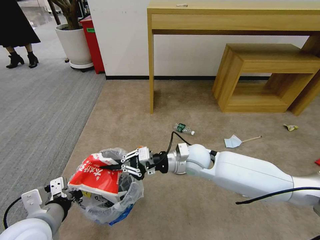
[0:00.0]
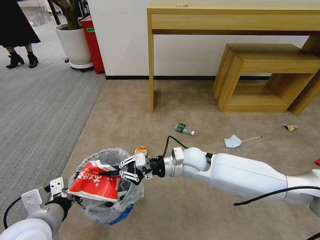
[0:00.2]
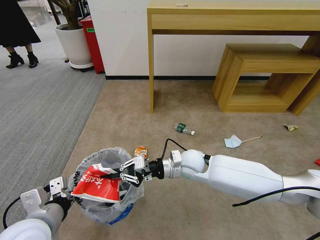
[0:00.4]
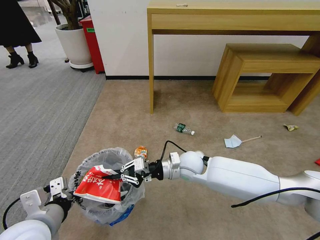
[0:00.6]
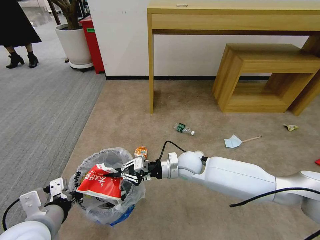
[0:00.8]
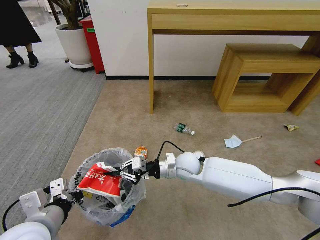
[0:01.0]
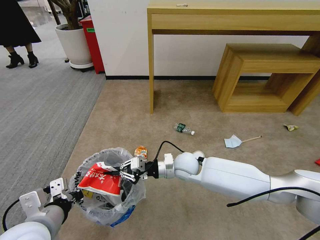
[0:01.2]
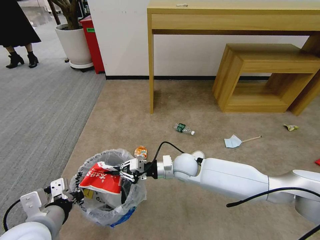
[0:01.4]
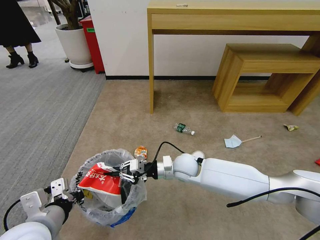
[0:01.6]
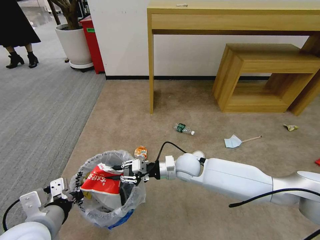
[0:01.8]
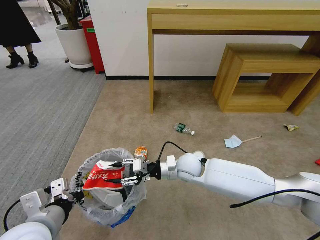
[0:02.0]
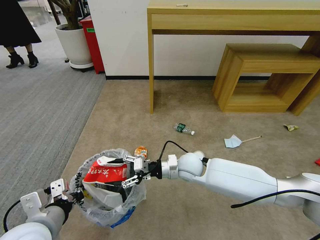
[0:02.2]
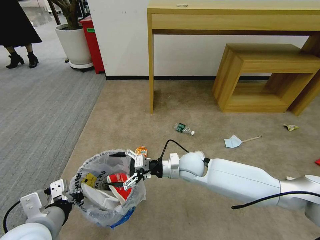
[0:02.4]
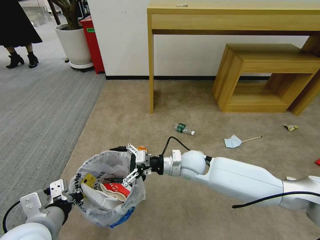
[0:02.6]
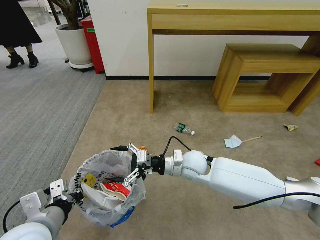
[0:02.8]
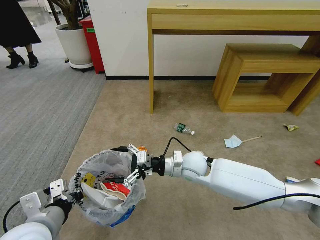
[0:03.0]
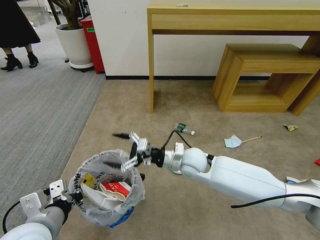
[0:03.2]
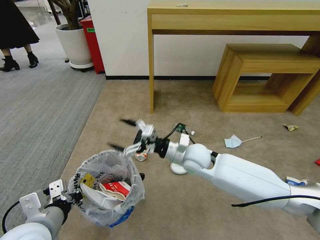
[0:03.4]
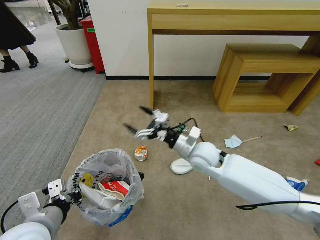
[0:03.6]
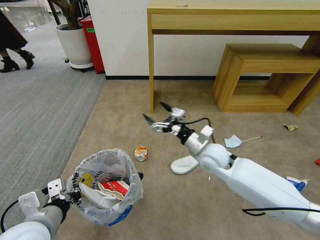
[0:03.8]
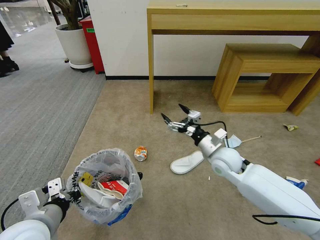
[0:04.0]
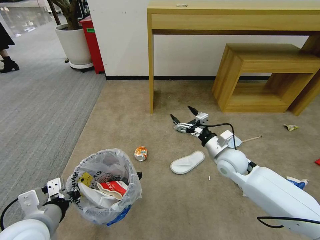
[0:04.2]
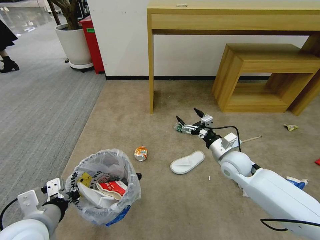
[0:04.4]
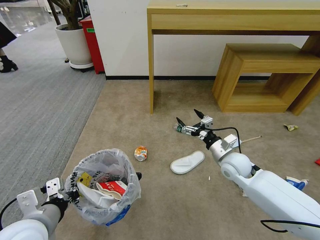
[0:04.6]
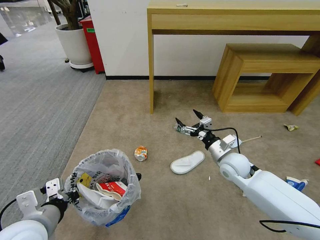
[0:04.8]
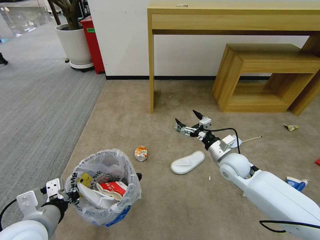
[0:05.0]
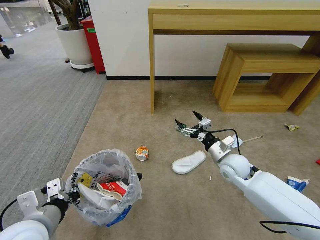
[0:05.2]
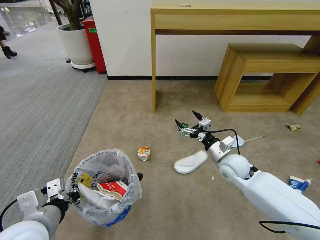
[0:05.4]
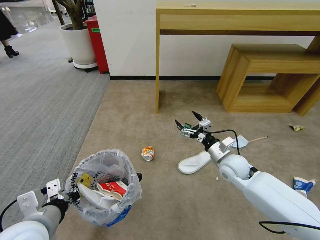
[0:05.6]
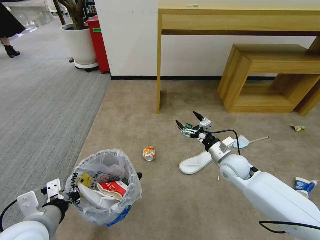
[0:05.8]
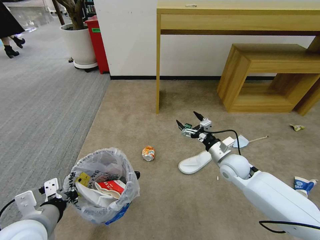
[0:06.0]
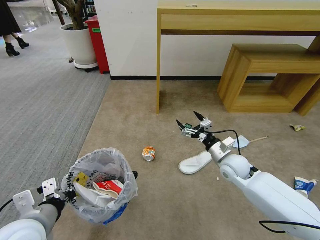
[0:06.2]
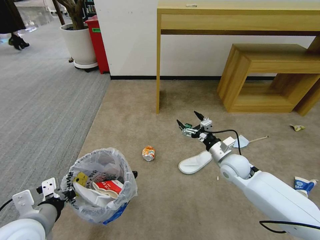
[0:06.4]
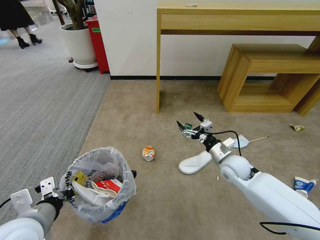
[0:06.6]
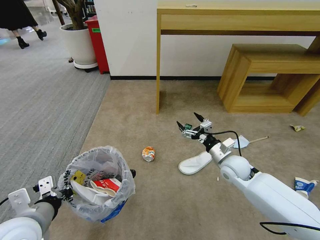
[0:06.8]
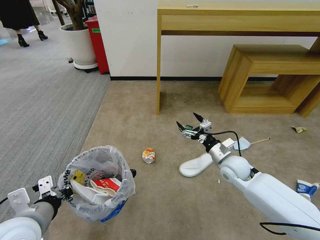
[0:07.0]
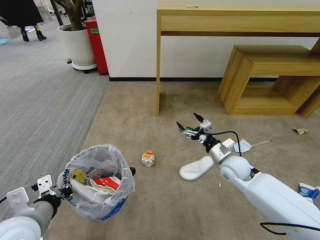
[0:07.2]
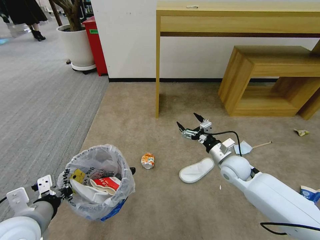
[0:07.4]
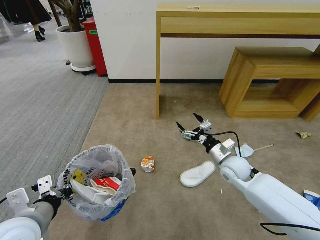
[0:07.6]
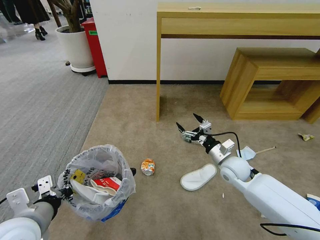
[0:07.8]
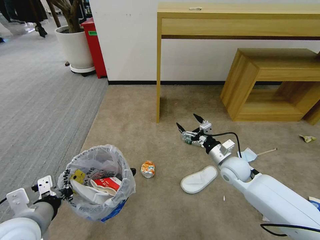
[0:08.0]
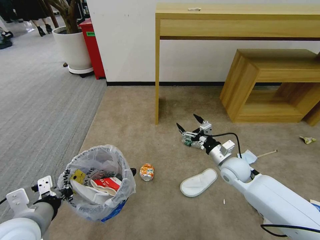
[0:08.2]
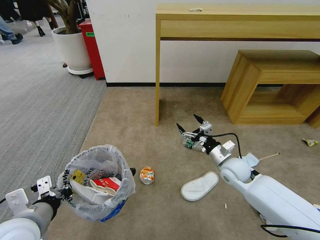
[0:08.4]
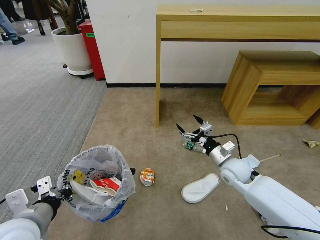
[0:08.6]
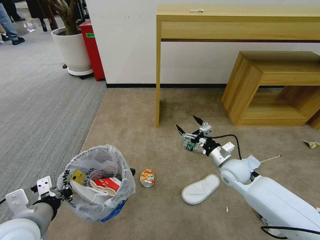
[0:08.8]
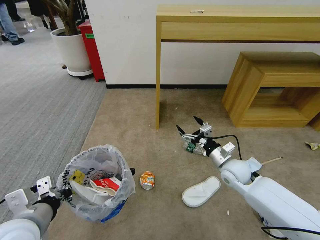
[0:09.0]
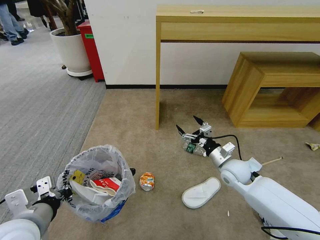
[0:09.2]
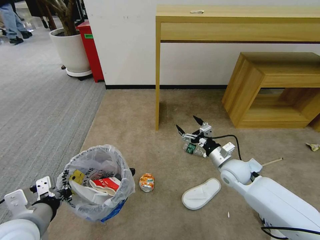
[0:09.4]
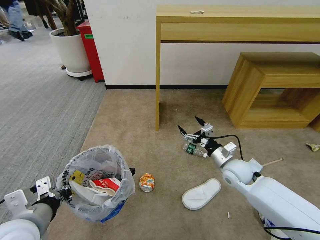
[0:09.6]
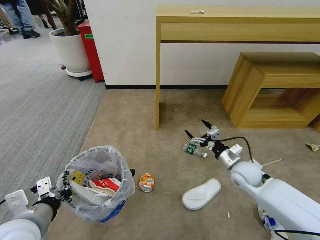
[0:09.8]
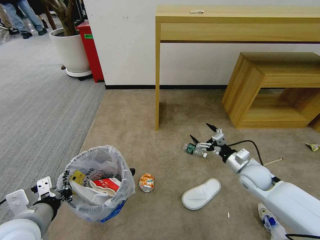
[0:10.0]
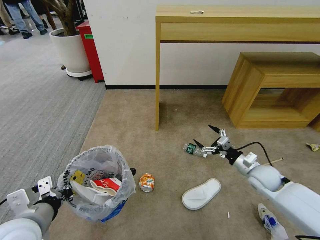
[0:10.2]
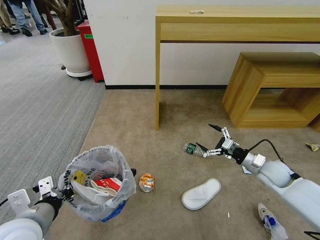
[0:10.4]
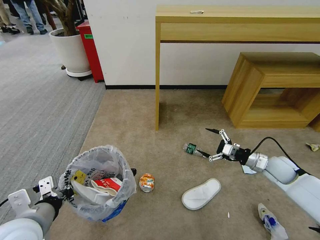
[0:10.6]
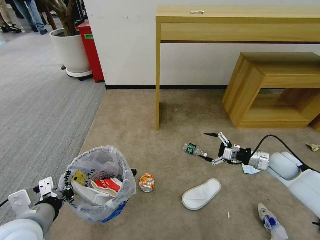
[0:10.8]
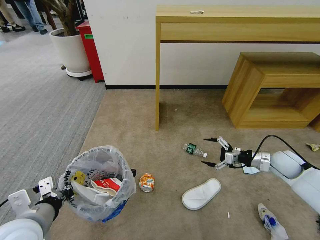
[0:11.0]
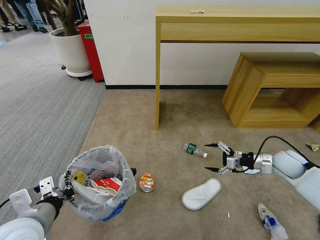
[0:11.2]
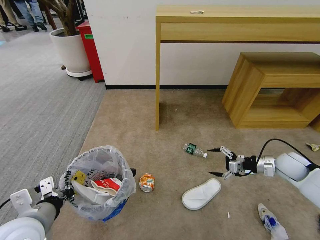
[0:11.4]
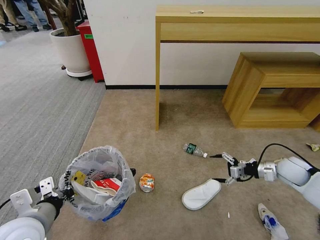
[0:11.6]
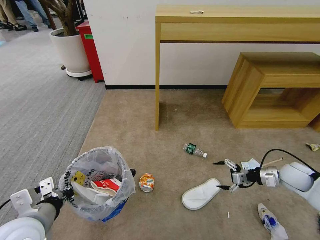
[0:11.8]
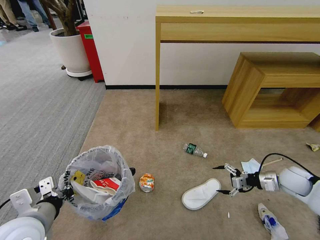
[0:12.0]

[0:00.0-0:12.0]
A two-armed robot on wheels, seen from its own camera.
Task of the whole recording: Pick up the trash bin and place the garbage on the floor into it.
0:00.0 to 0:01.6: The right gripper travels downward by approximately 5 cm.
0:01.6 to 0:03.0: The right gripper opens.
0:03.0 to 0:04.4: The right gripper is displaced to the right by about 15 cm.
0:04.4 to 0:06.0: The grippers move only a little.
0:09.0 to 0:10.4: The right gripper heads to the right, covering approximately 15 cm.
0:10.4 to 0:12.0: The right gripper goes some 10 cm to the right.

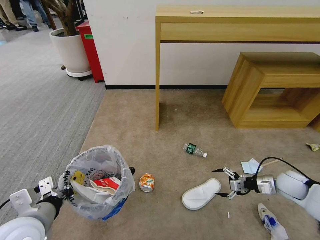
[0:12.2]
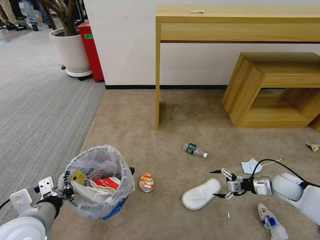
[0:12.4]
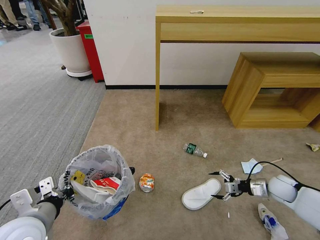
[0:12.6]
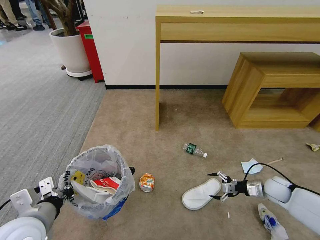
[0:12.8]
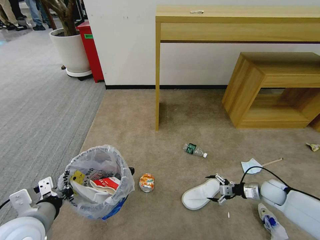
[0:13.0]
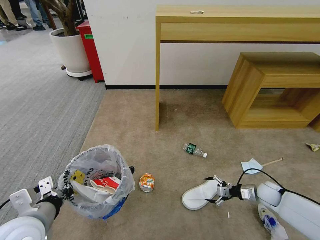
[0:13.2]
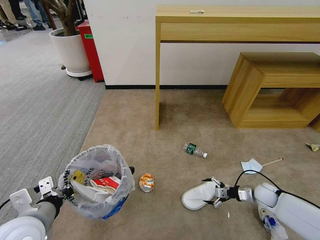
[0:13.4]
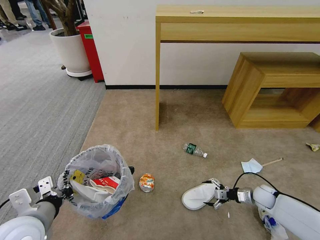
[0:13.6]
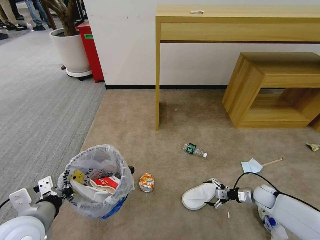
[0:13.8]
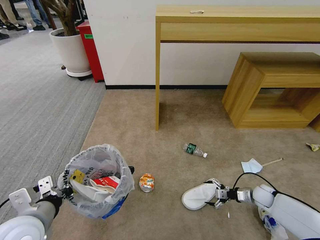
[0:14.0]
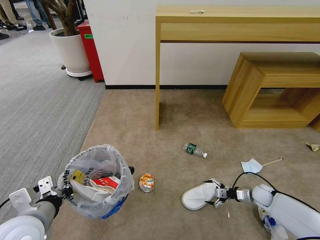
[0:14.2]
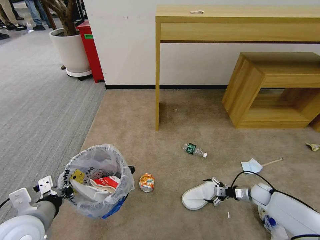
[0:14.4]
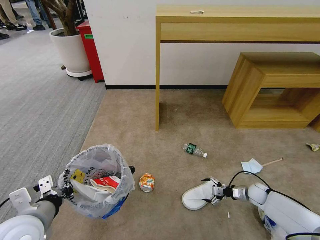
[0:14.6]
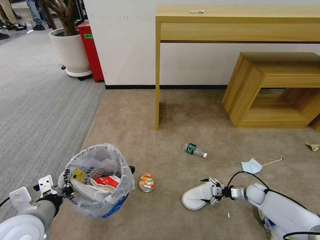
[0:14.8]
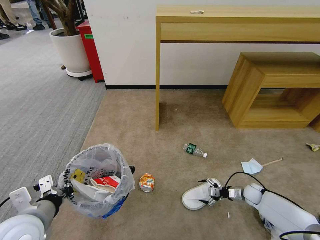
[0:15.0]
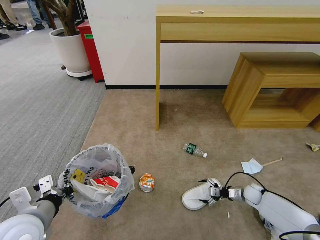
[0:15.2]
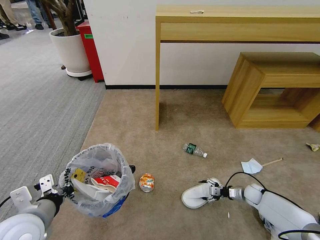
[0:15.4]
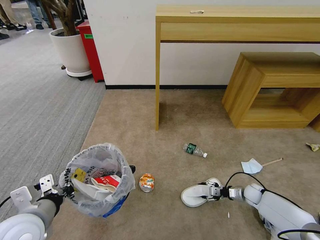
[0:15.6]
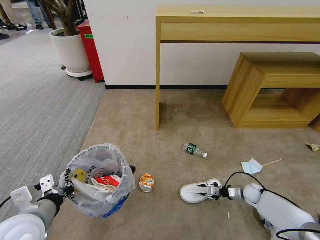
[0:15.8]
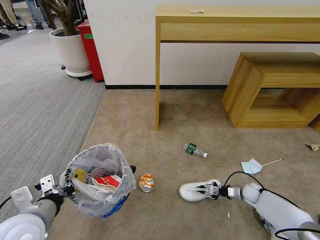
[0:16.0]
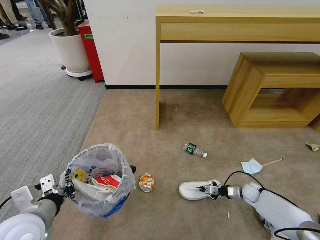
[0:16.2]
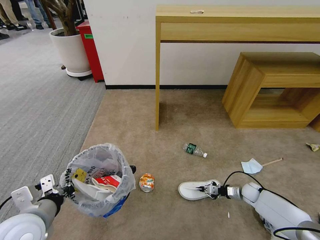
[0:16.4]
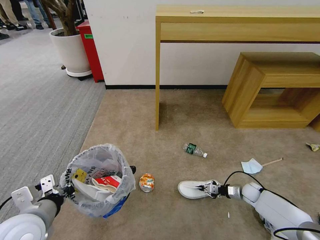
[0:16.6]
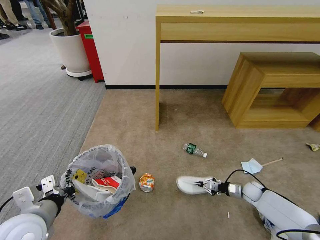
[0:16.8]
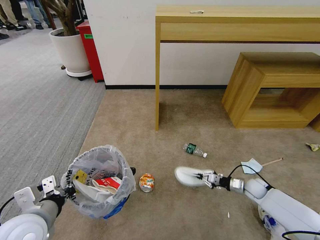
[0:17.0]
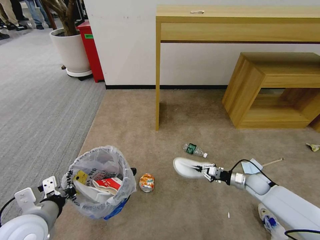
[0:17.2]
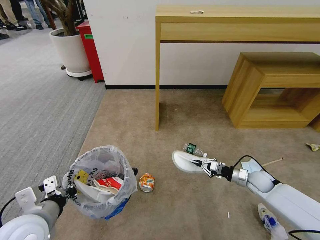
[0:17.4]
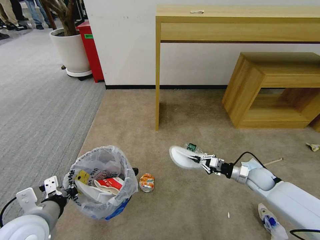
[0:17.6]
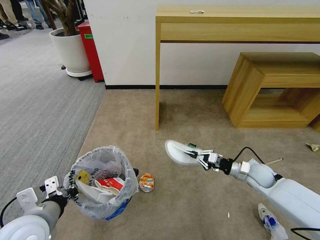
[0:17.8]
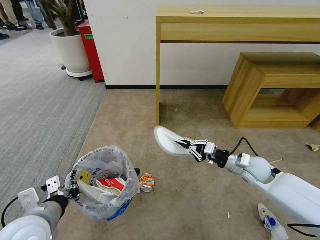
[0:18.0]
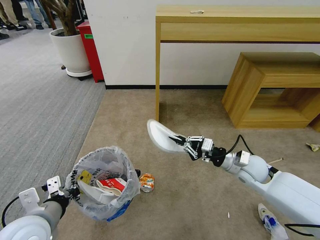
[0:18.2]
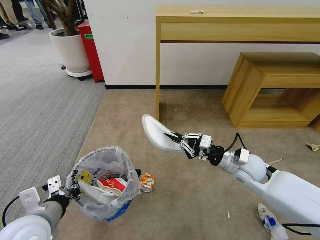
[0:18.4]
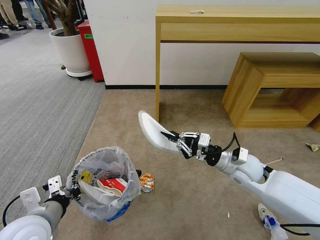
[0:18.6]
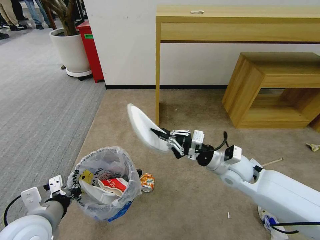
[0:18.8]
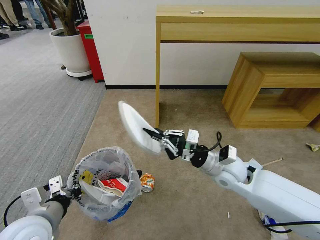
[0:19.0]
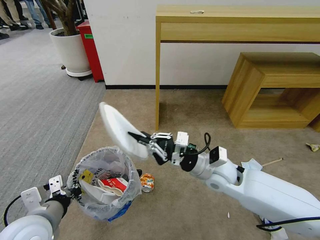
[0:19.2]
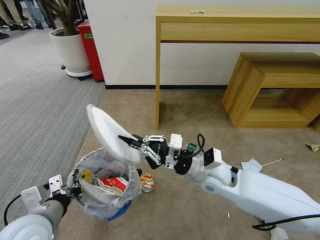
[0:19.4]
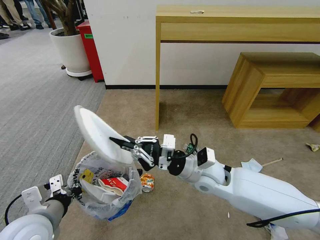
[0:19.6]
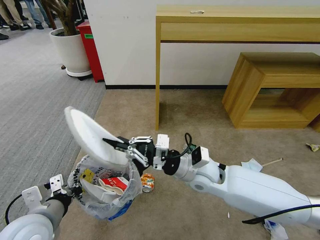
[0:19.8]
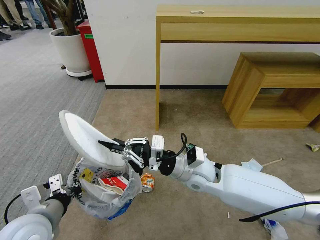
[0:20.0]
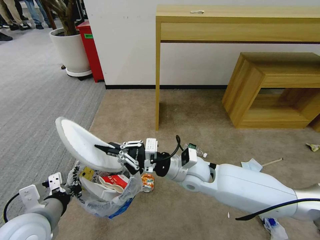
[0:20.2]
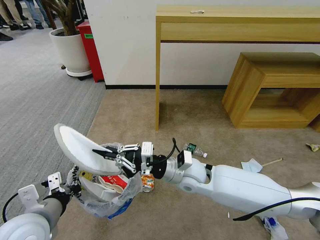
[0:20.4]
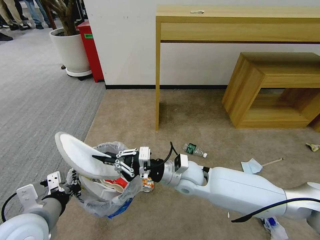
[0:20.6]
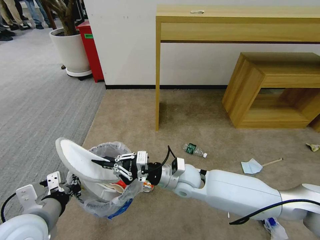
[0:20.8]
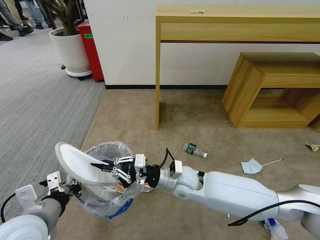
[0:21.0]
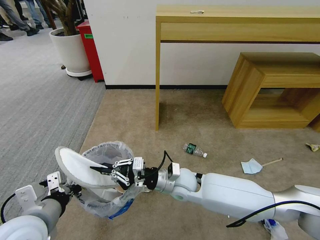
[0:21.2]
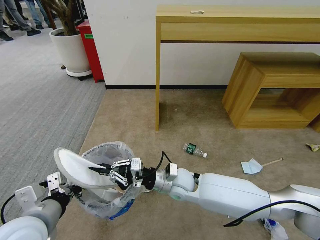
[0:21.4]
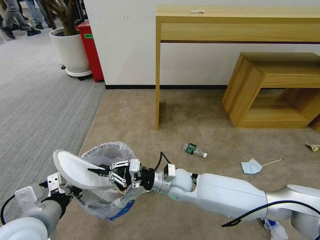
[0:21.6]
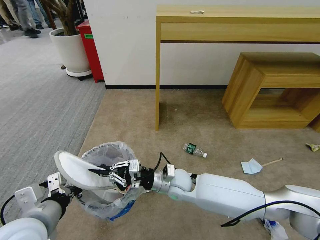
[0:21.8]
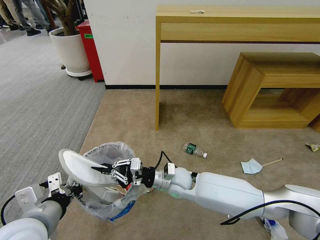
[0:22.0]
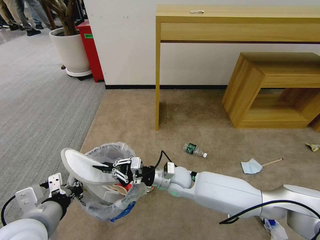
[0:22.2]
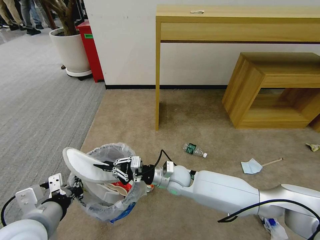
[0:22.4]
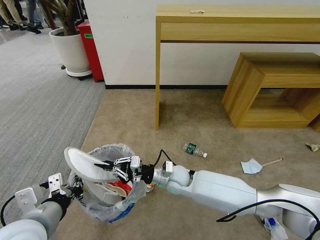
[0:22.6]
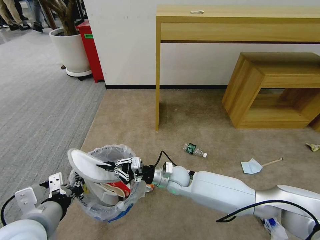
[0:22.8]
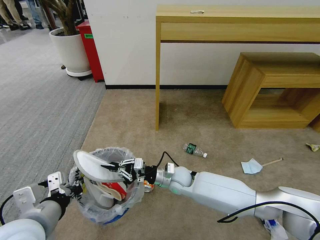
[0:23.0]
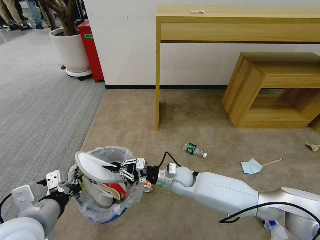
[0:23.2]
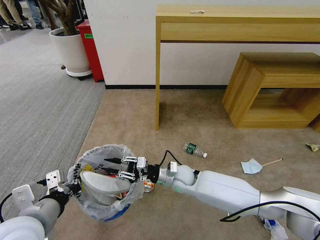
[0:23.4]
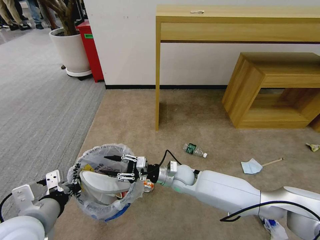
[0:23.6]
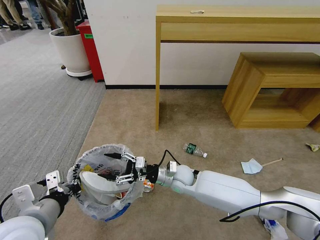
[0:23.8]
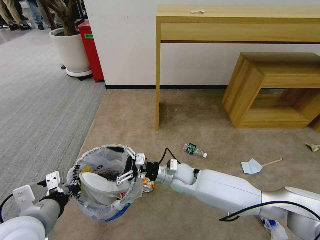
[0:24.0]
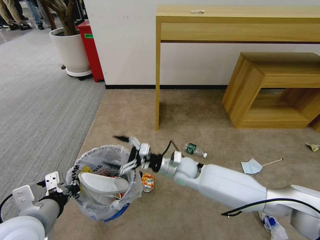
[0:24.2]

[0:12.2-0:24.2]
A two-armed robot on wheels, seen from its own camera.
Task of the whole recording: Pick up the trash bin and place the garbage on the floor into it.
0:12.2 to 0:13.8: The right gripper moves downward, roughly 15 cm.
0:13.8 to 0:15.2: The right gripper shifts by some 5 cm.
0:15.2 to 0:16.6: The right gripper closes its fingers.
0:16.6 to 0:18.2: The right gripper is displaced upward and to the left by about 30 cm.
0:18.2 to 0:19.8: The right gripper goes about 20 cm to the left.
0:19.8 to 0:21.2: The right gripper heads downward, covering some 10 cm.
0:21.2 to 0:22.6: The right gripper moves about 5 cm.
0:22.6 to 0:24.2: The right gripper opens its fingers.
